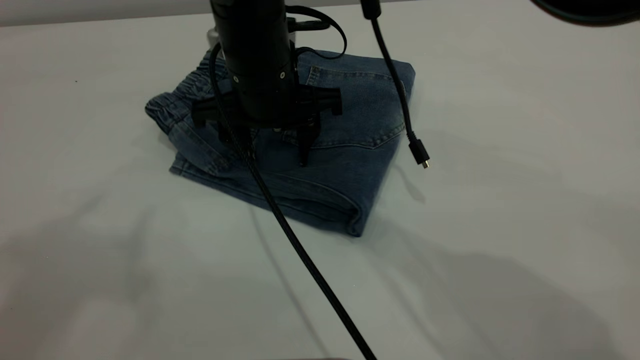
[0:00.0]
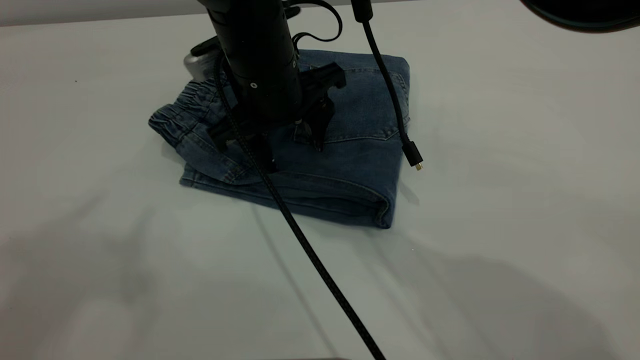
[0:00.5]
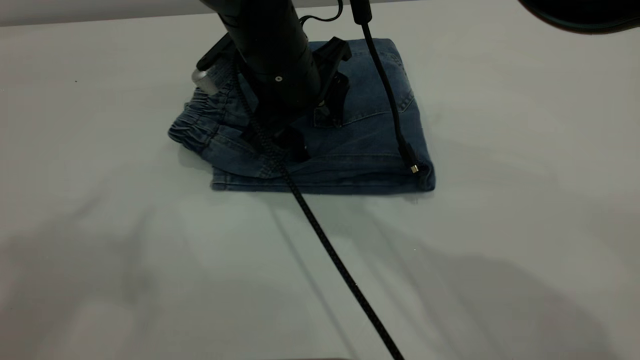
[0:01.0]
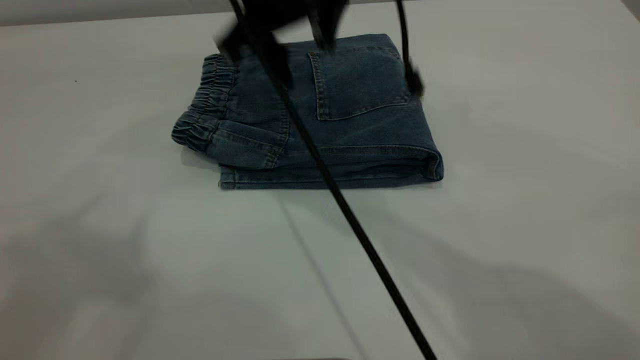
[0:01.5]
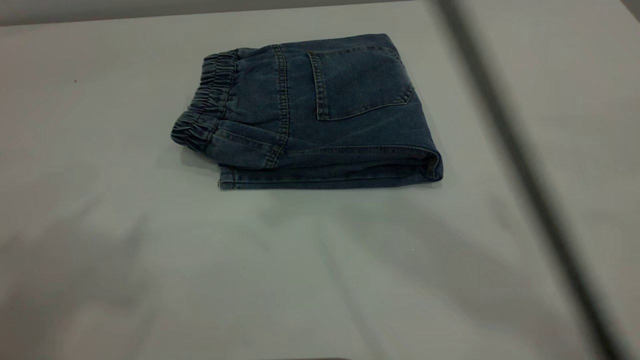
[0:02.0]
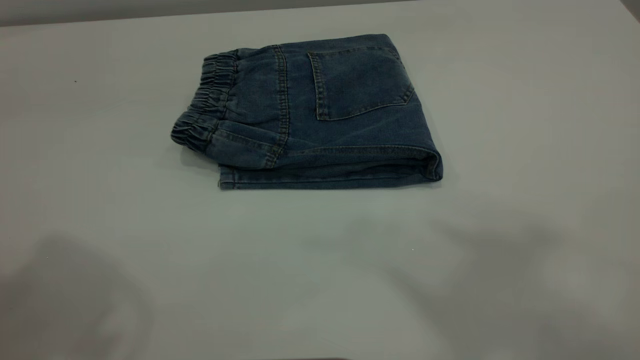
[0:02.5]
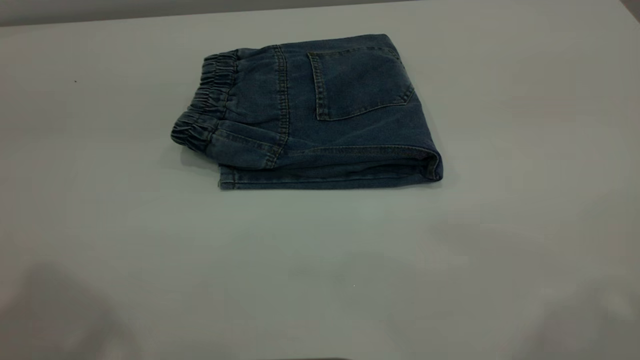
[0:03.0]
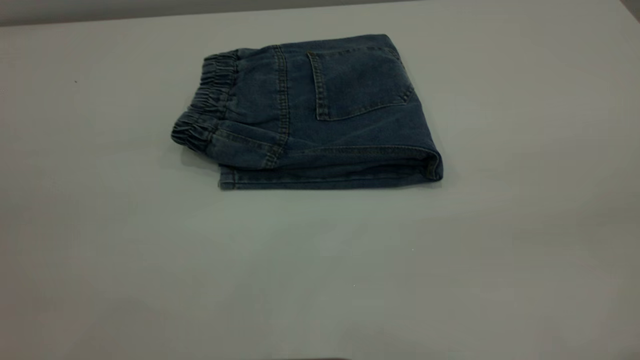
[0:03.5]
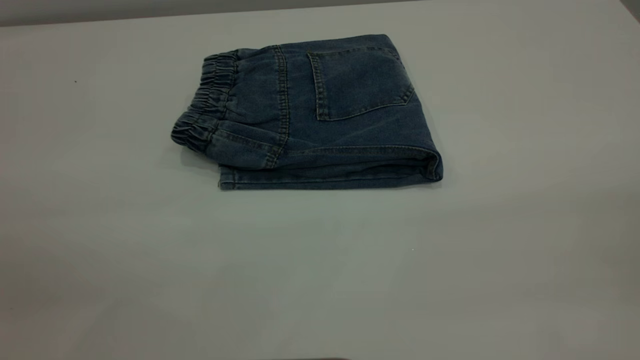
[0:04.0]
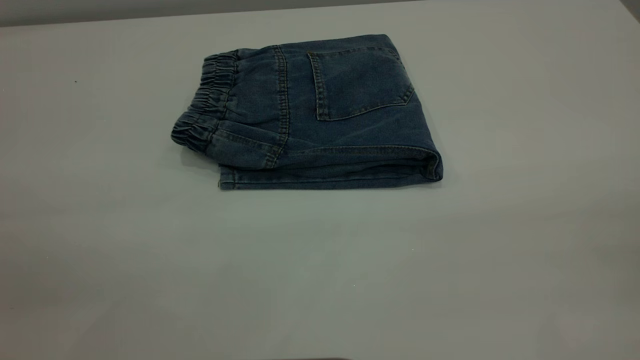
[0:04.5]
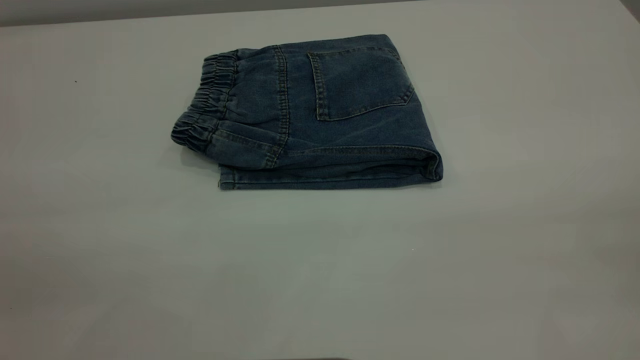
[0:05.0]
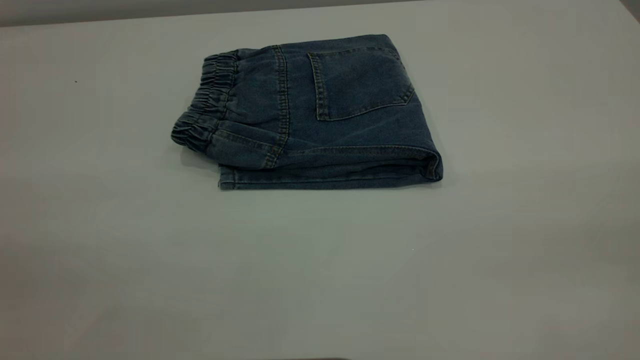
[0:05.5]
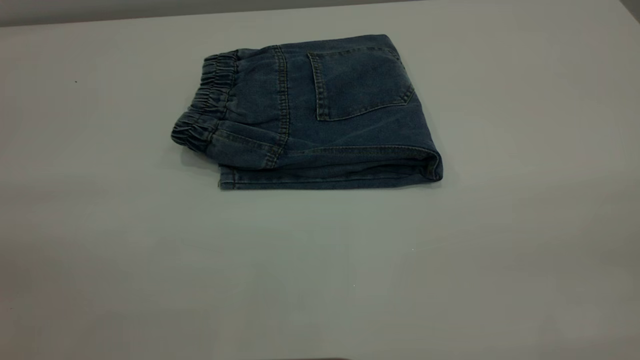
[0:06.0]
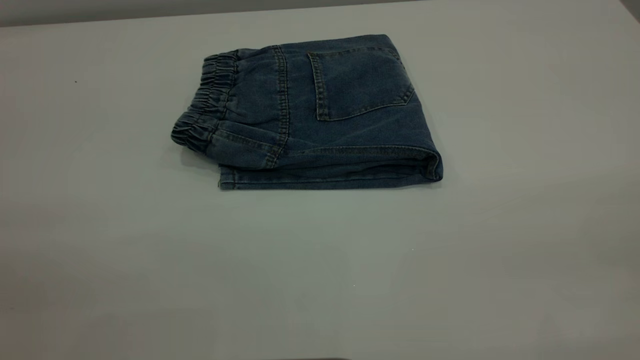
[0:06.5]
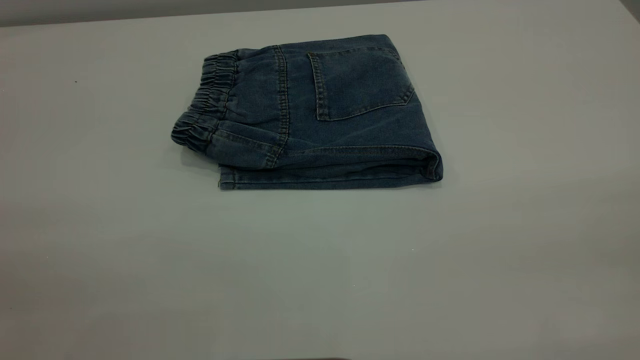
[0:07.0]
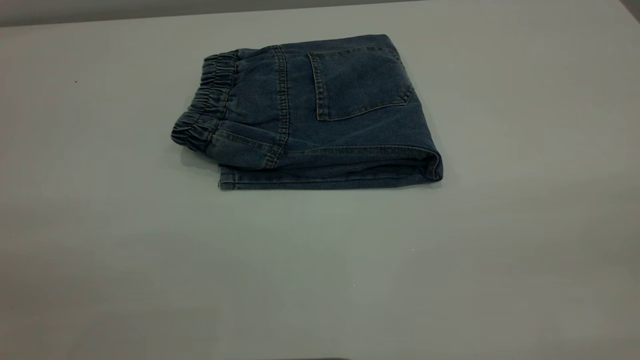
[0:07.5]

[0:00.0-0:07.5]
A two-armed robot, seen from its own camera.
0:00.0 to 0:02.0: The right gripper heads upward, covering some 35 cm.
0:02.0 to 0:04.0: The right gripper is displaced backward, to the right and downward by roughly 40 cm.
